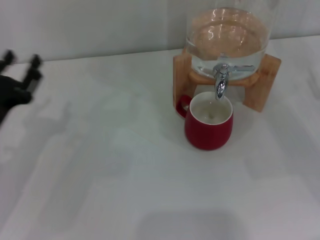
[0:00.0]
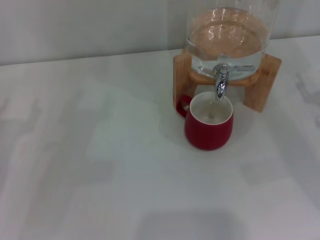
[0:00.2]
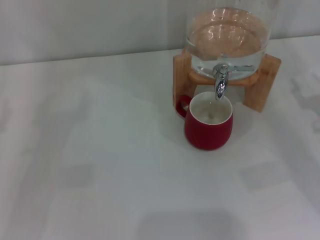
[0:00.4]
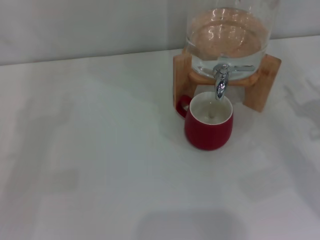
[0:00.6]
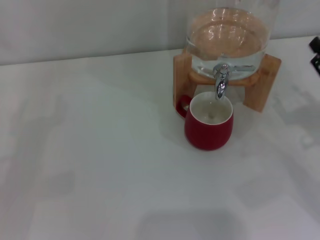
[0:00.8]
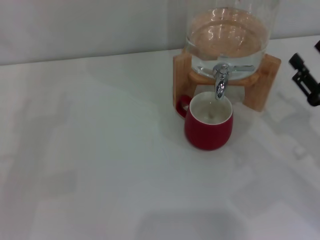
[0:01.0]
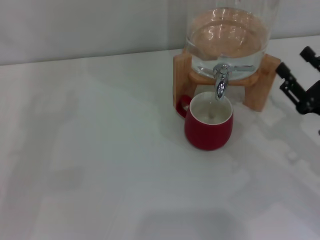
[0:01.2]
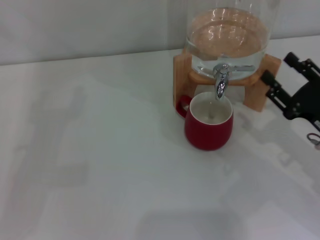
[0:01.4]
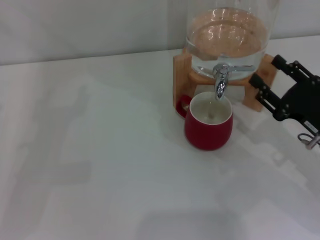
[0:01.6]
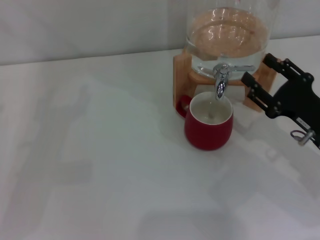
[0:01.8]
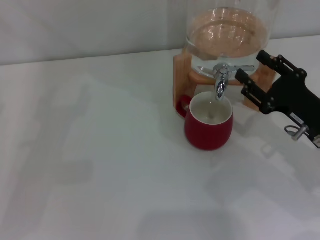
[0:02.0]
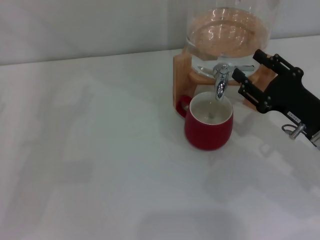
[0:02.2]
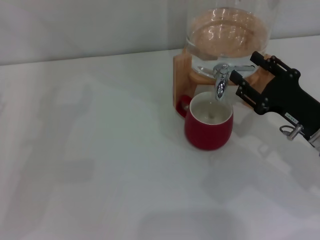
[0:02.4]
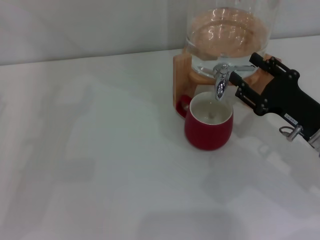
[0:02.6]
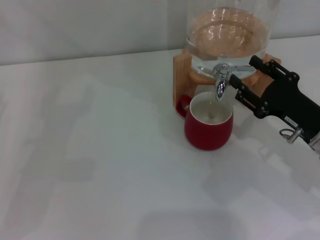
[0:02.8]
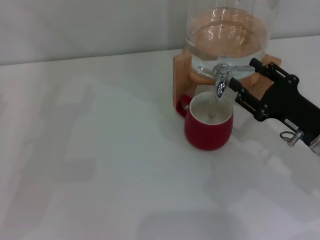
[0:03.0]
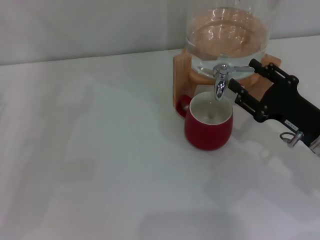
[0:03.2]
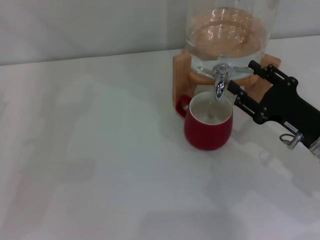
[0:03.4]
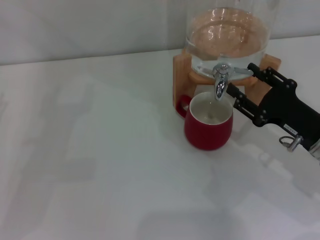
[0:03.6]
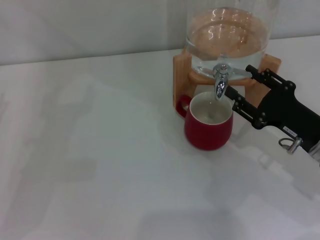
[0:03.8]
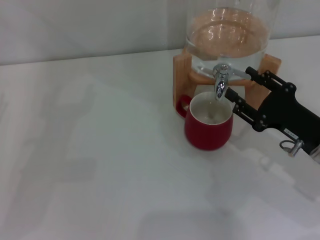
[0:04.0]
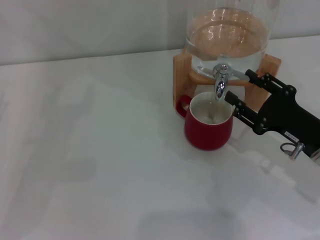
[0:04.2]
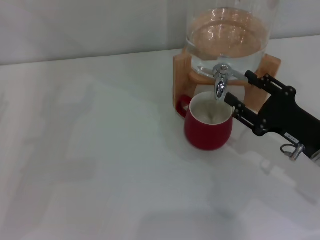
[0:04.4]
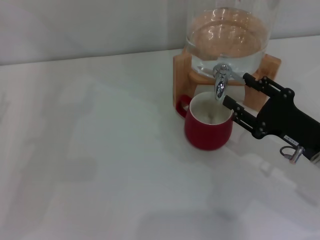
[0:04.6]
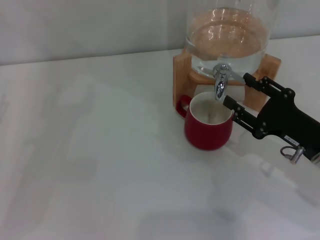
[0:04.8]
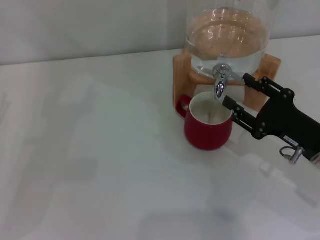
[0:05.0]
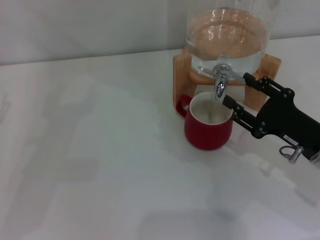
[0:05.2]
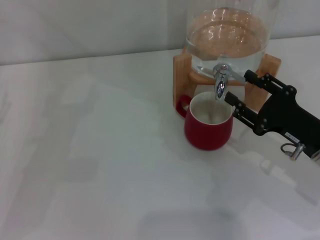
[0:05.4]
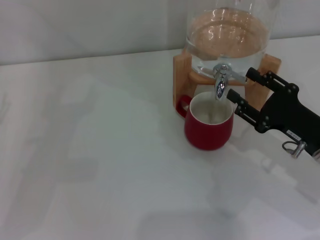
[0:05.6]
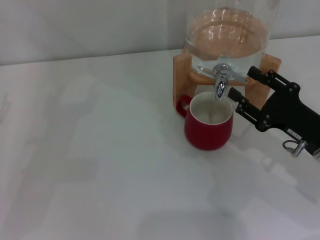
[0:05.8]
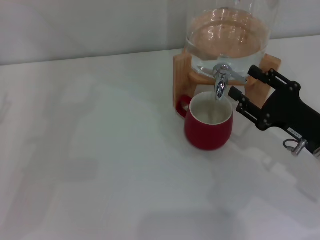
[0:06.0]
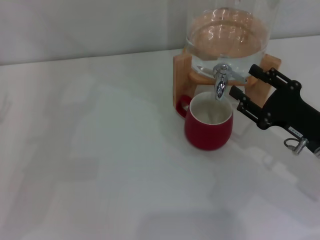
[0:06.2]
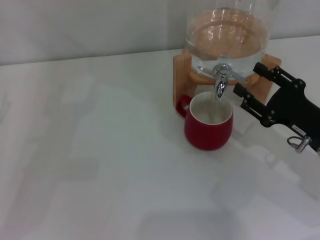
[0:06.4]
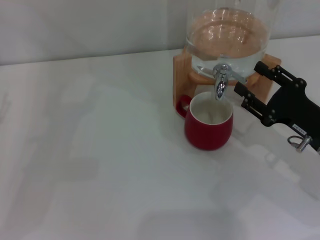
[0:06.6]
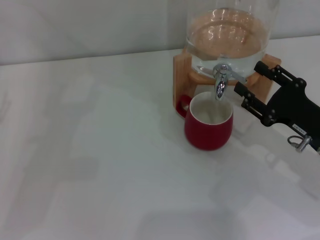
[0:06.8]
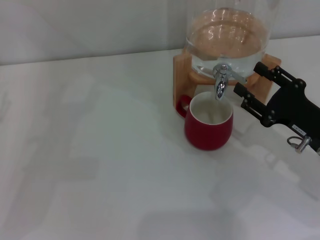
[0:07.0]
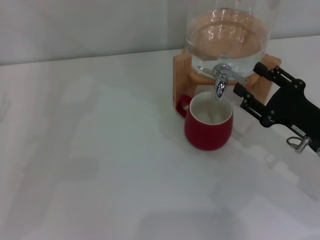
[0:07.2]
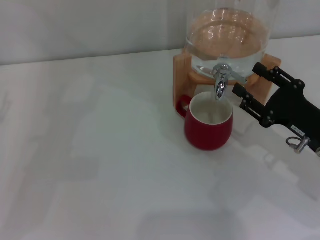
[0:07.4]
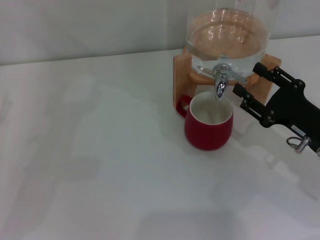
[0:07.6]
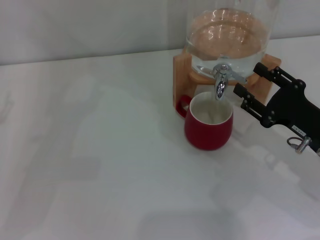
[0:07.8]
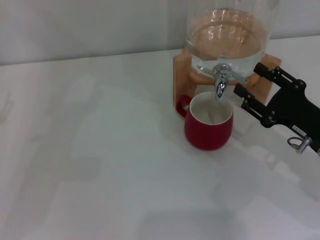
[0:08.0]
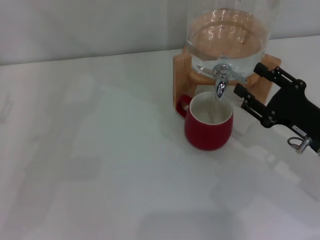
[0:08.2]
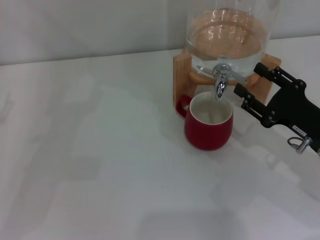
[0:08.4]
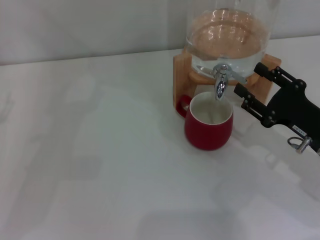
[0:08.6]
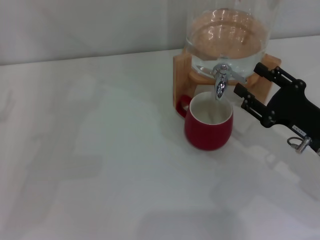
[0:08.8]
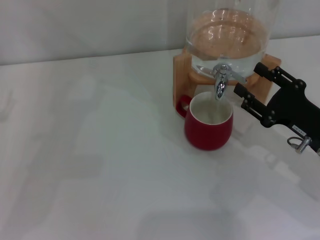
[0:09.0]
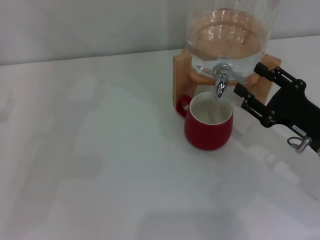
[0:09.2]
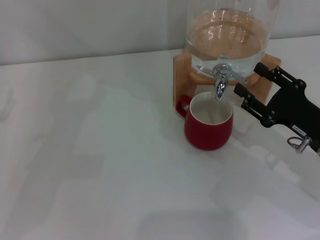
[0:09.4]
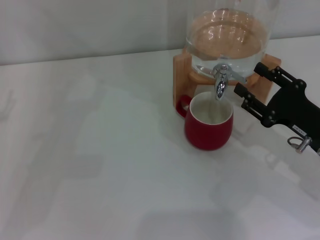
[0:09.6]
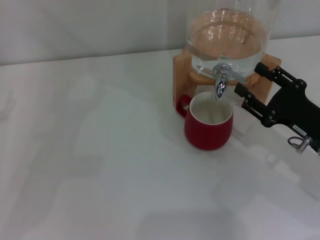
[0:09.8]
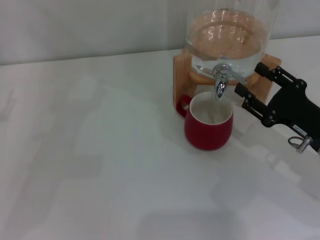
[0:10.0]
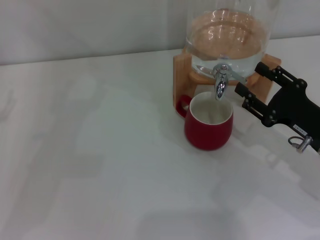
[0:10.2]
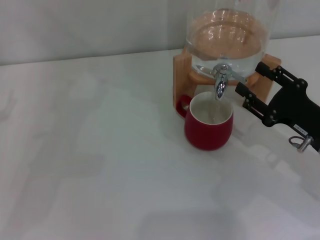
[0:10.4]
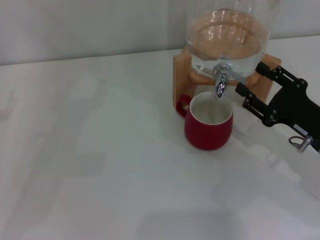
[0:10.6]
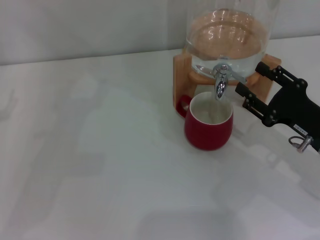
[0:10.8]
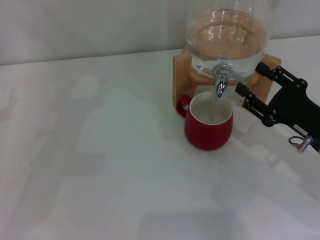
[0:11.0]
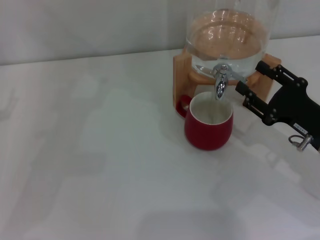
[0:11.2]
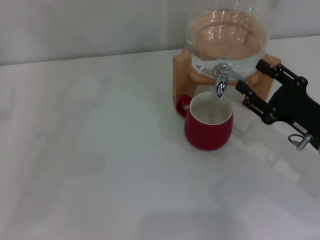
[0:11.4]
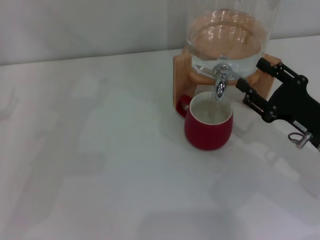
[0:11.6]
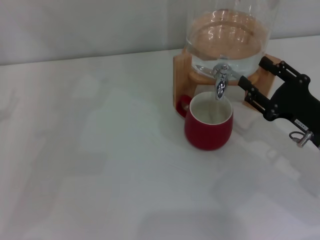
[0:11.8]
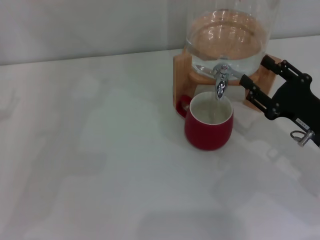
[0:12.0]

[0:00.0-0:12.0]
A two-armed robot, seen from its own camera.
Task of the whole recording: the left gripper pick up the red cup and place it horizontally under the faucet, the right gripper turn on the faucet to fill the cup, and then turn off the faucet.
Step, 0:00.0 to 0:05.8: Open the dispenser valve and fill the cup with water with the right gripper.
0:00.0 to 0:01.6: The grippers both shift to the left by about 10 cm. The left gripper opens.
0:01.6 to 0:04.4: The grippers move only a little.
0:04.4 to 0:10.4: The two grippers keep their place.
0:10.4 to 0:12.0: Both grippers stay put.

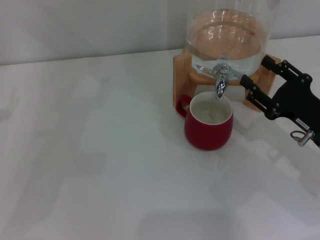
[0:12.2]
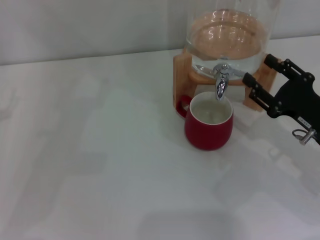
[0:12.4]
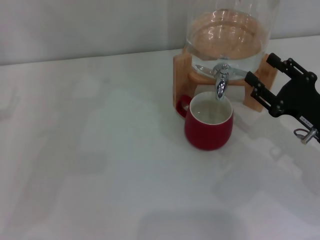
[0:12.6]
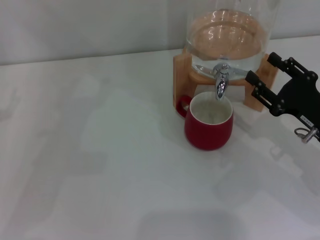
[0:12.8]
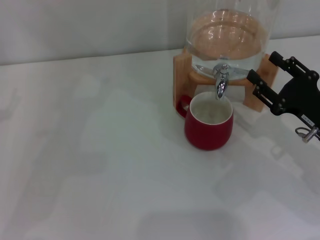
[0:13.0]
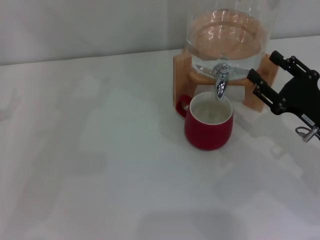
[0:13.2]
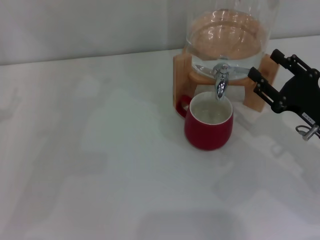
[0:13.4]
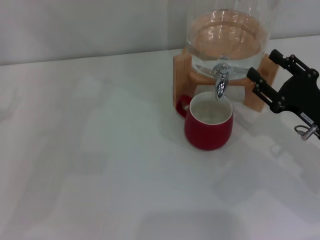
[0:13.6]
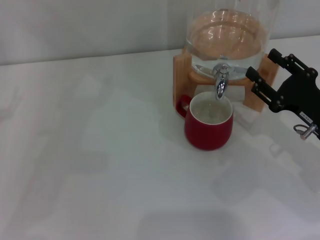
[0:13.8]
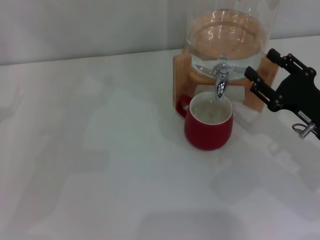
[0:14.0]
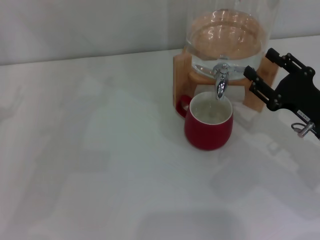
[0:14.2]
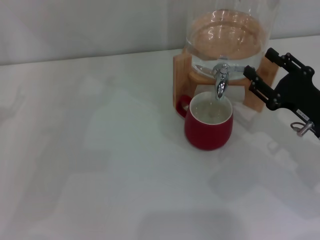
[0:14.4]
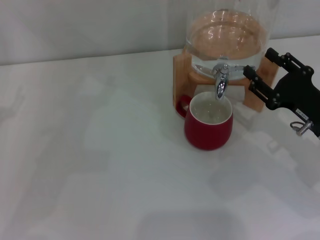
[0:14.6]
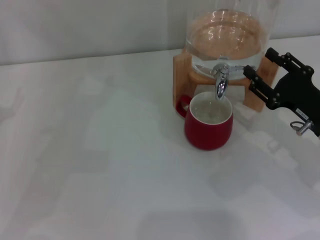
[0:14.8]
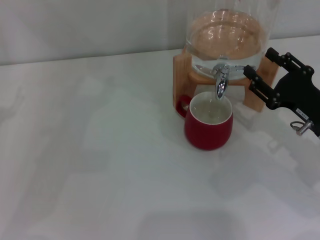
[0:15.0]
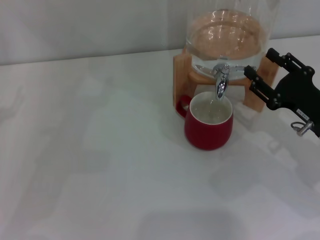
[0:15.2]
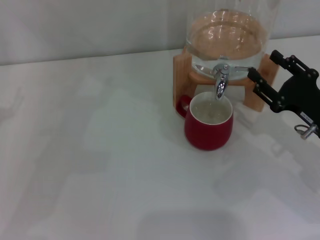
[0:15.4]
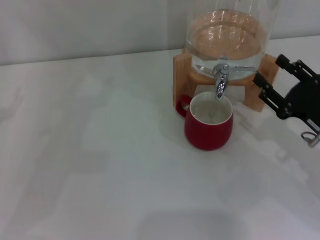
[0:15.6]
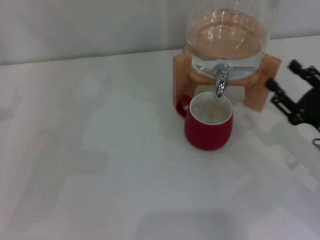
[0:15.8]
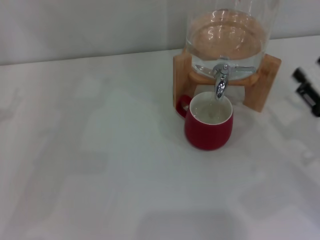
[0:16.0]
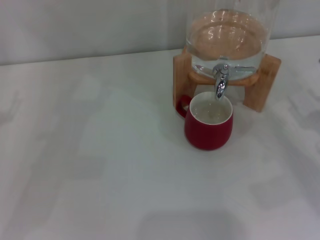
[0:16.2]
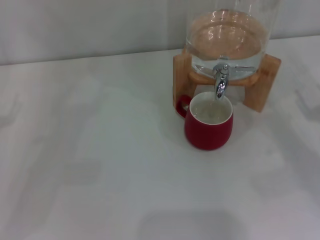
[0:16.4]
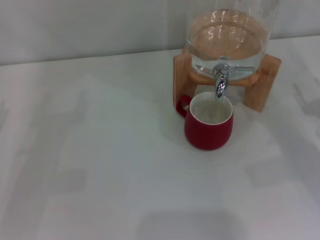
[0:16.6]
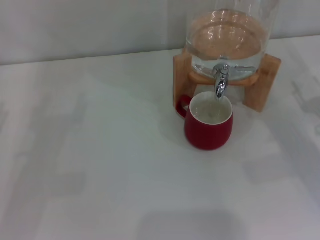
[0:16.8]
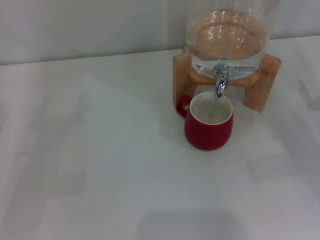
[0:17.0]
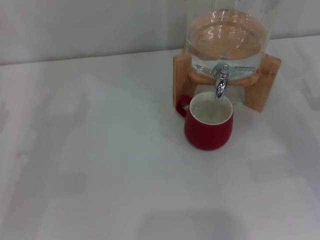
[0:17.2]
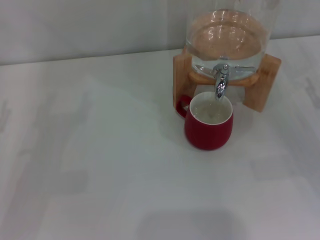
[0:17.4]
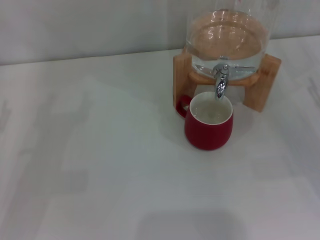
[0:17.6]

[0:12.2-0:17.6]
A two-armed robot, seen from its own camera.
Task of the whole recording: the left gripper pick up the red cup and place it horizontally under the faucet, the right gripper turn on the faucet to fill the cup, and then turn off the faucet.
Step, 0:12.2 to 0:15.2: Close the dispenser valve with the right gripper.
0:12.2 to 0:15.0: Neither gripper changes place.
0:15.0 to 0:16.2: The right gripper is displaced to the right by approximately 5 cm.
